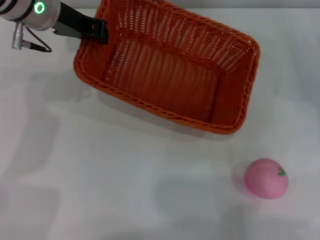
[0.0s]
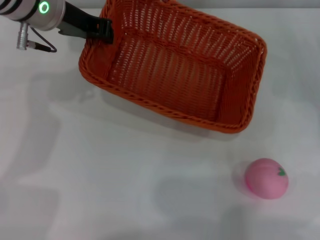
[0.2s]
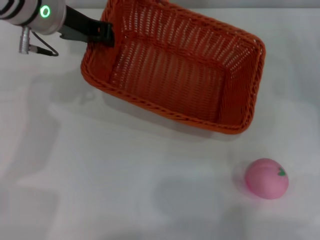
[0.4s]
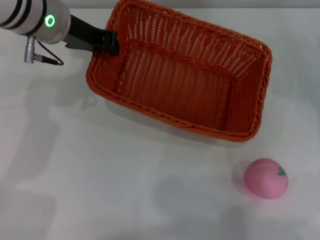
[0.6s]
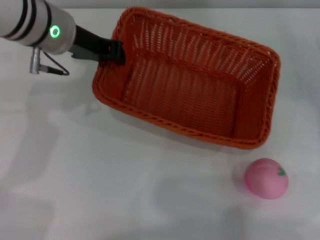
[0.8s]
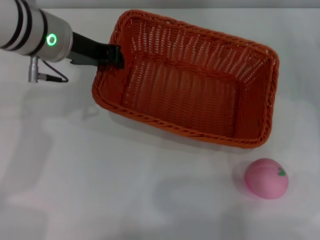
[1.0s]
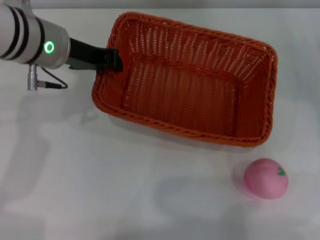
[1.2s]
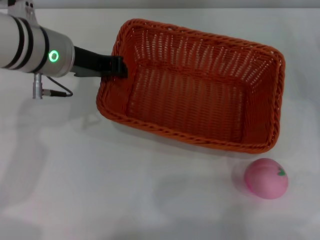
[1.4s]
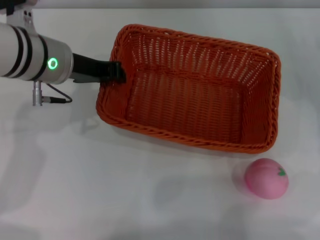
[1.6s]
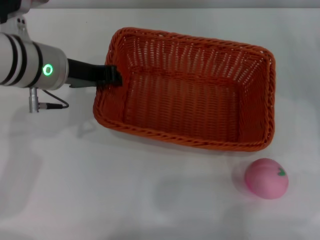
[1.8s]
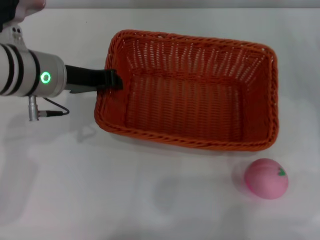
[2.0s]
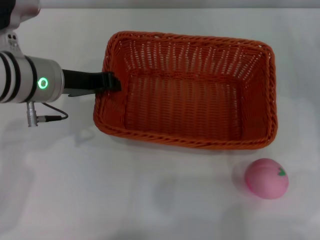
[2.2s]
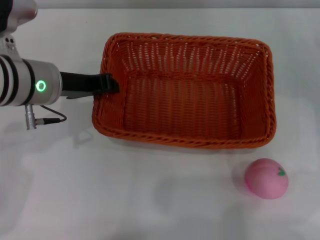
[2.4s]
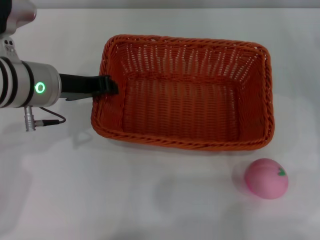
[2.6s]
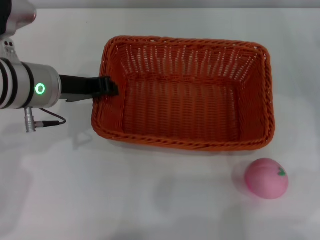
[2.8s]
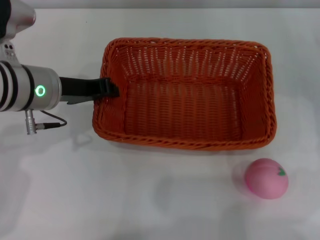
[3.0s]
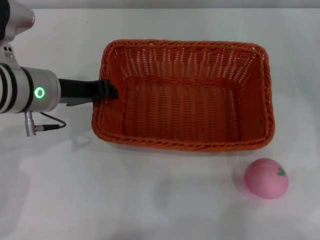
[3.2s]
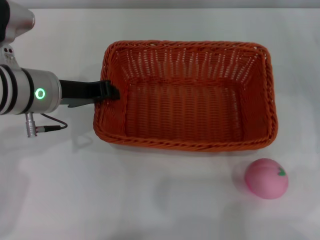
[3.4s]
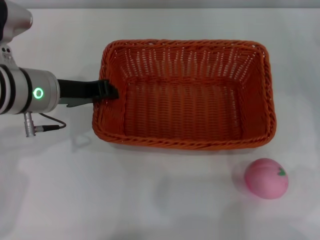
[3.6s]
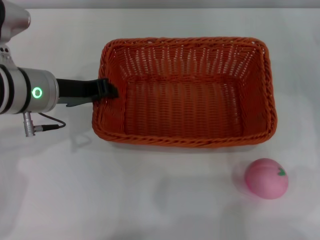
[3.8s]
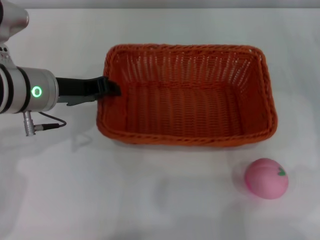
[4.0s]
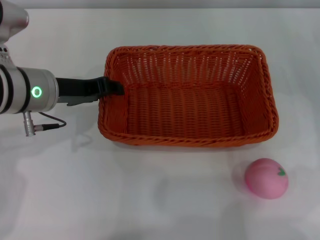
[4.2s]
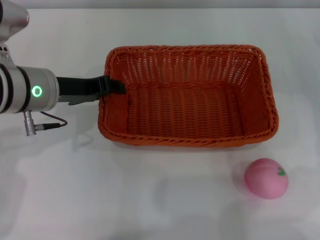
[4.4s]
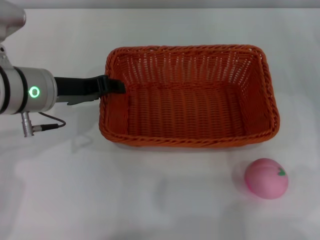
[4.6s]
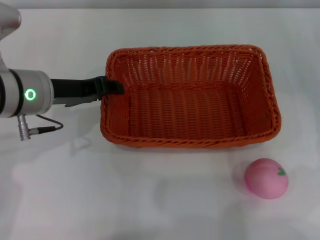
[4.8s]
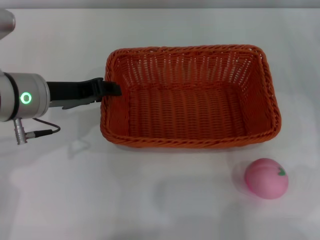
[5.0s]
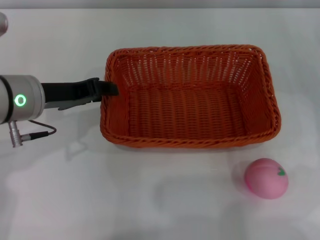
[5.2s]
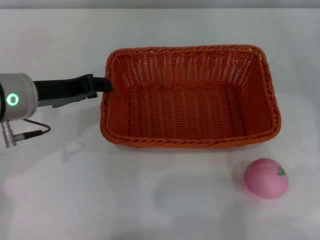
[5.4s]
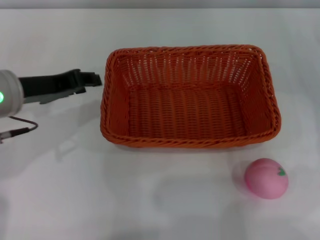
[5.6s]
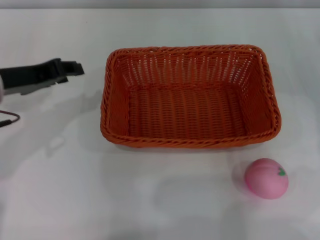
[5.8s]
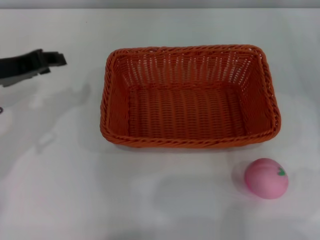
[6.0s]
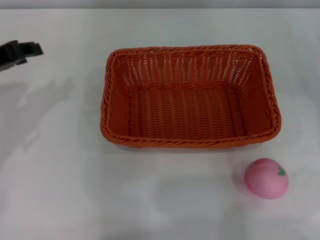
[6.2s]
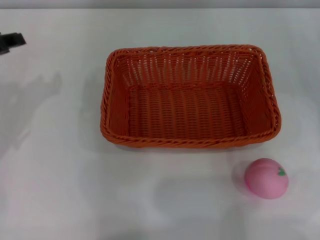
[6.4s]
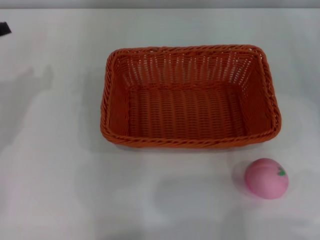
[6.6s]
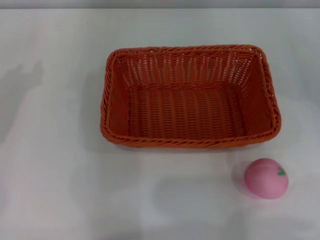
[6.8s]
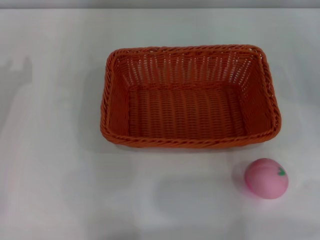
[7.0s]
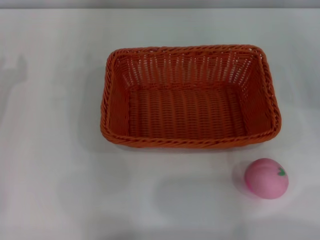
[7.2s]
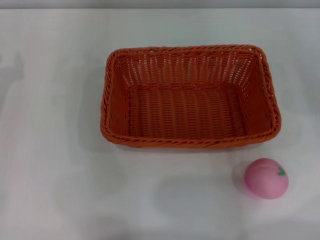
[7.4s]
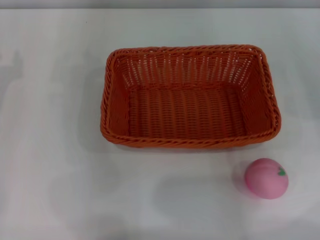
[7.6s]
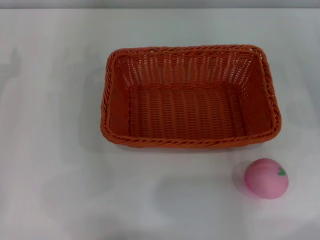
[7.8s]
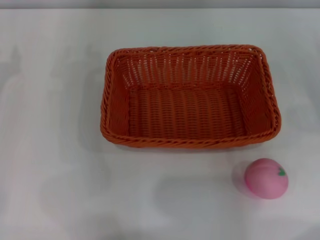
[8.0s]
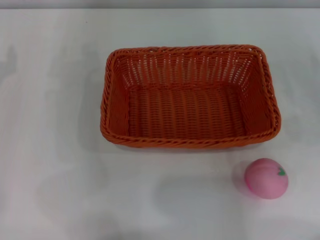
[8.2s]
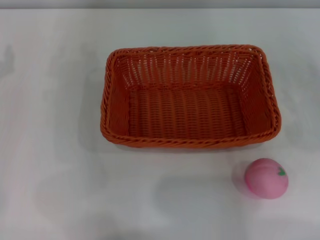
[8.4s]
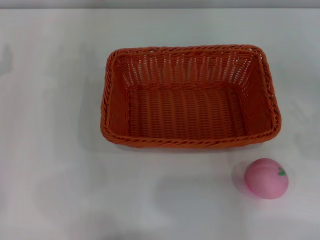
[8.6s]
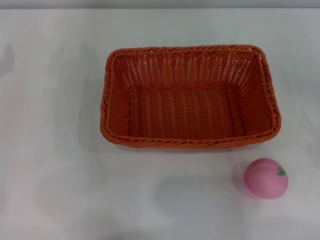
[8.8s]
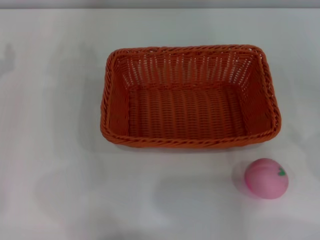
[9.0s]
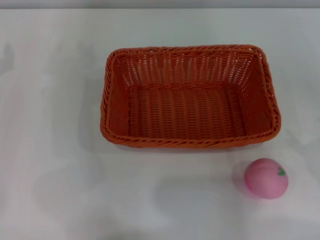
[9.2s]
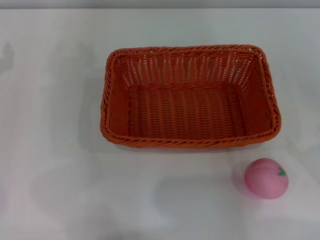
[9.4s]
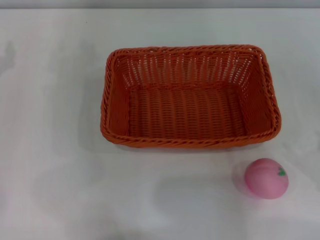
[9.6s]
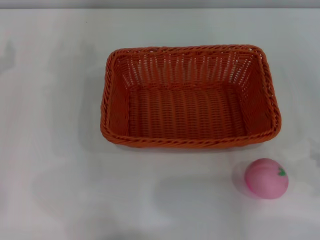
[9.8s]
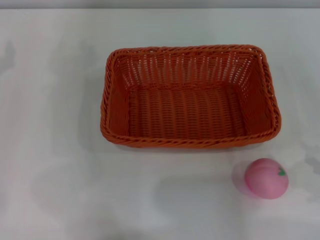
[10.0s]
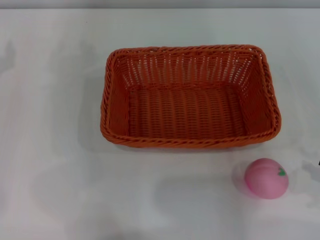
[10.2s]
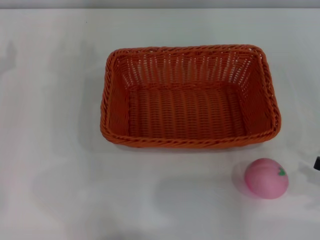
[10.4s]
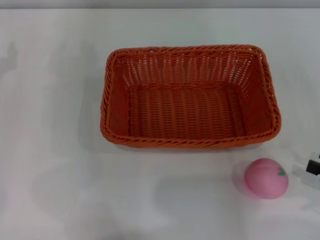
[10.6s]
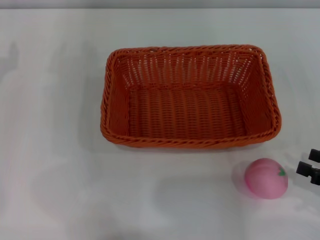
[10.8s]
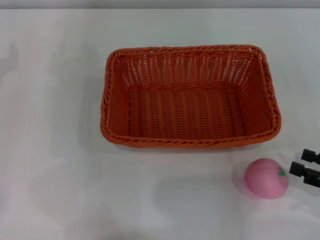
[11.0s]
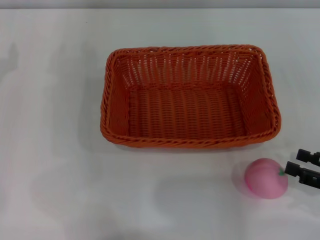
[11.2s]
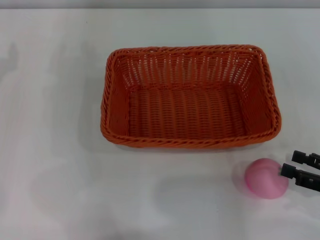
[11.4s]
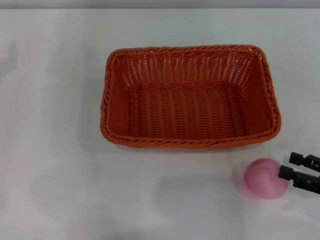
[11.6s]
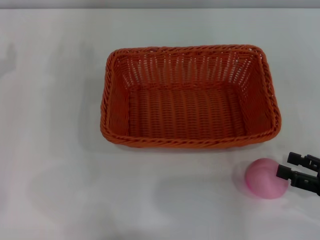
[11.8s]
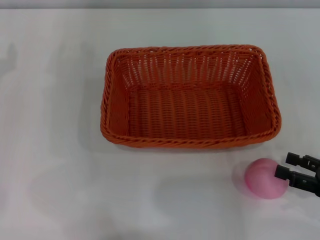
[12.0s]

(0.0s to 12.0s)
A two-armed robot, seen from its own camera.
0.0s - 1.6s: The left gripper is displaced downward by about 5 cm.
1.6s - 3.0s: There are only small adjustments of the grippers.
3.0s - 4.4s: The left gripper opens.
4.4s - 6.0s: The left gripper travels to the left by some 5 cm.
6.0s - 7.6s: The left gripper shifts roughly 10 cm to the left.
10.4s - 12.0s: There are only small adjustments of the grippers.

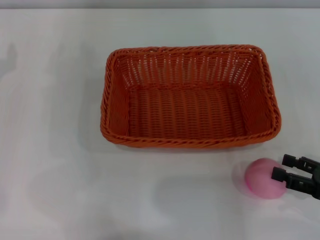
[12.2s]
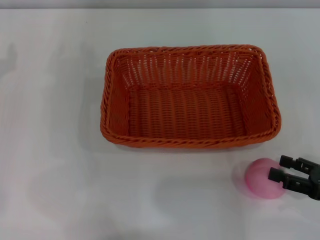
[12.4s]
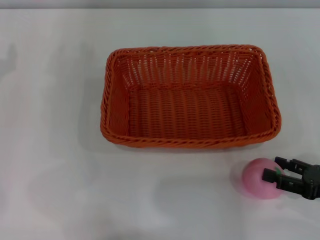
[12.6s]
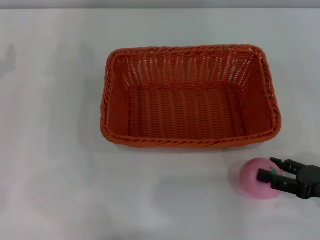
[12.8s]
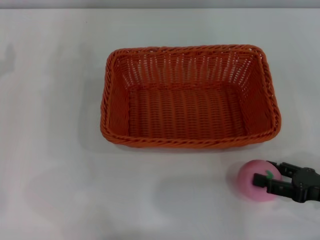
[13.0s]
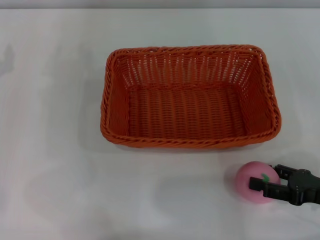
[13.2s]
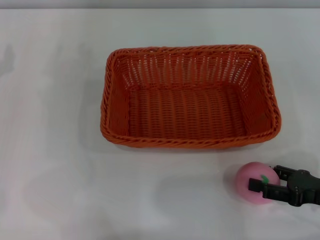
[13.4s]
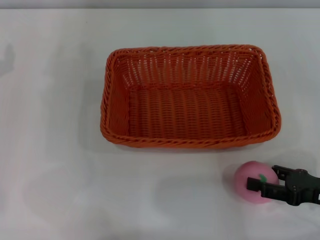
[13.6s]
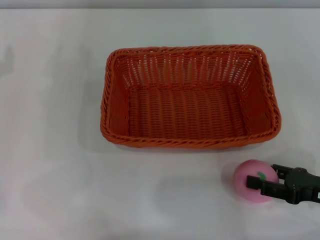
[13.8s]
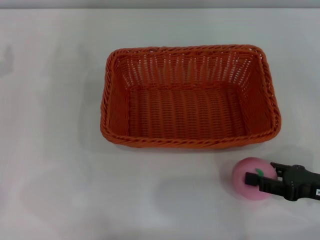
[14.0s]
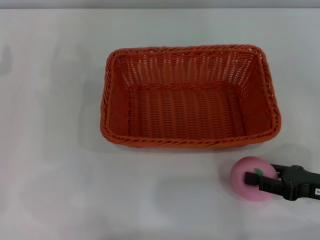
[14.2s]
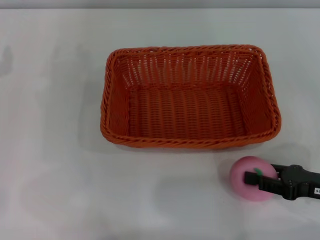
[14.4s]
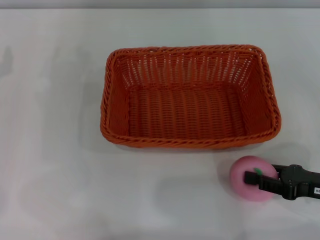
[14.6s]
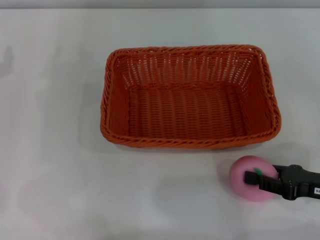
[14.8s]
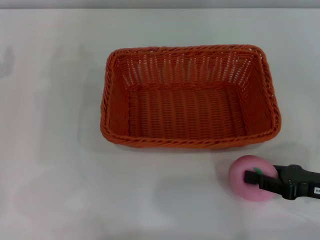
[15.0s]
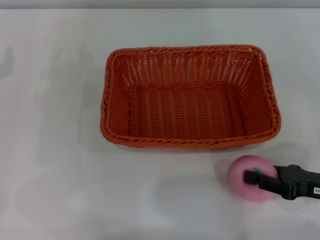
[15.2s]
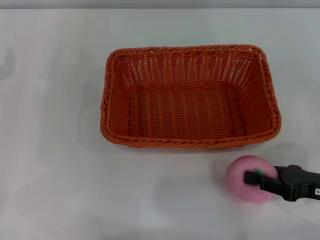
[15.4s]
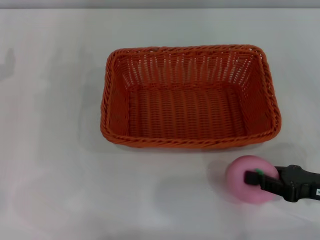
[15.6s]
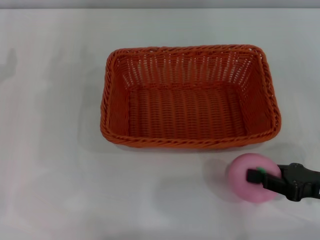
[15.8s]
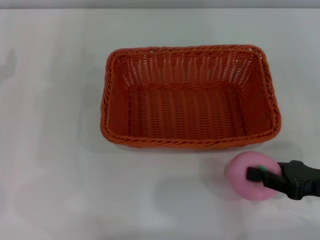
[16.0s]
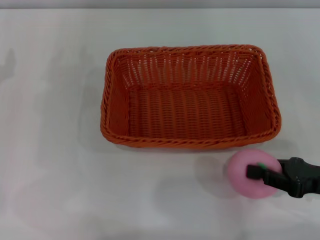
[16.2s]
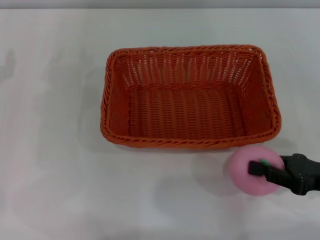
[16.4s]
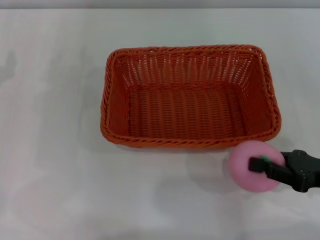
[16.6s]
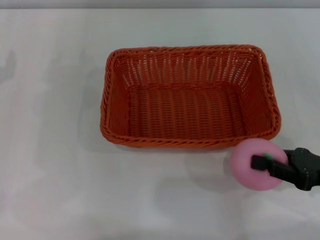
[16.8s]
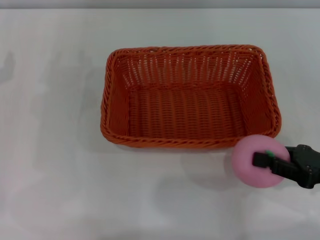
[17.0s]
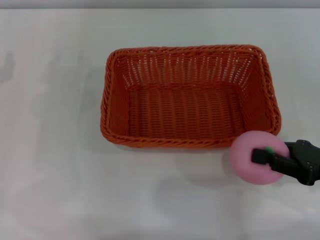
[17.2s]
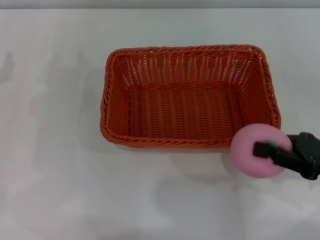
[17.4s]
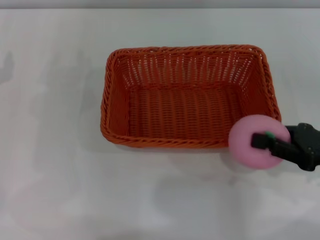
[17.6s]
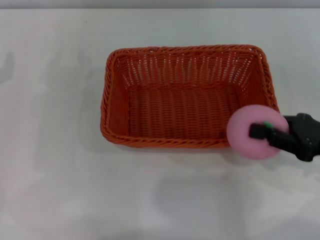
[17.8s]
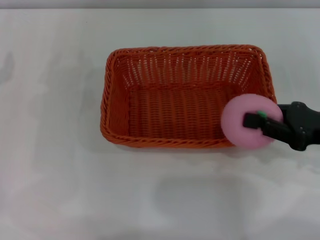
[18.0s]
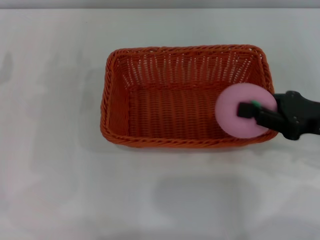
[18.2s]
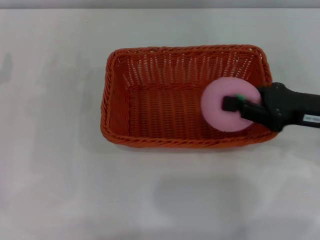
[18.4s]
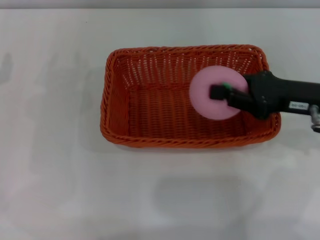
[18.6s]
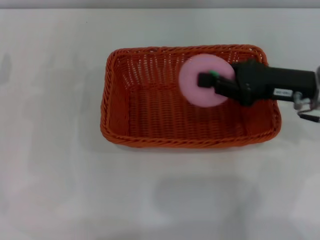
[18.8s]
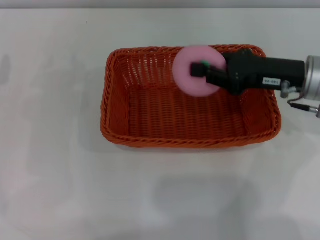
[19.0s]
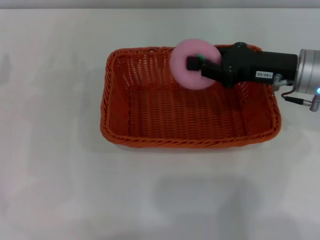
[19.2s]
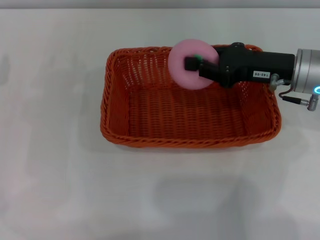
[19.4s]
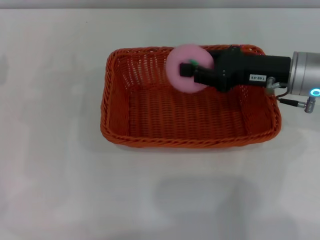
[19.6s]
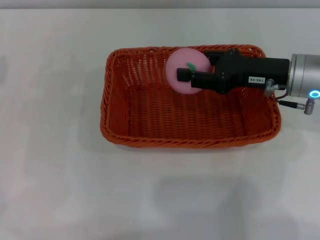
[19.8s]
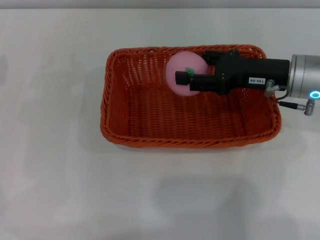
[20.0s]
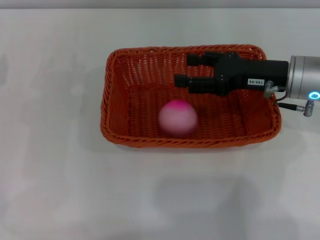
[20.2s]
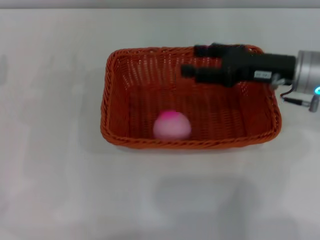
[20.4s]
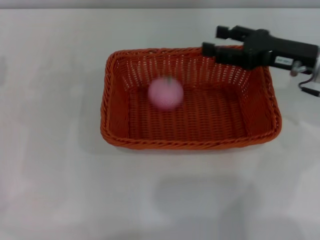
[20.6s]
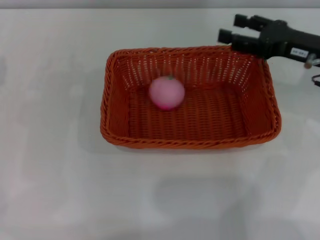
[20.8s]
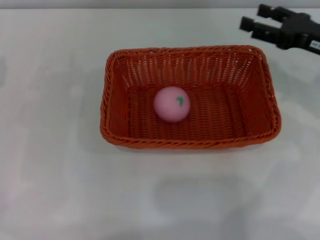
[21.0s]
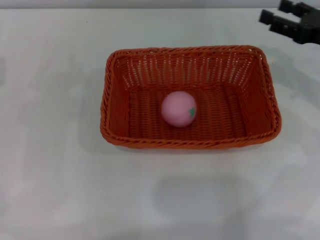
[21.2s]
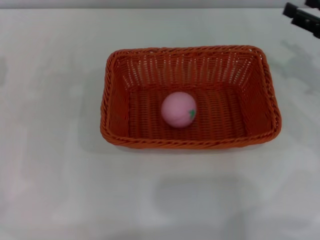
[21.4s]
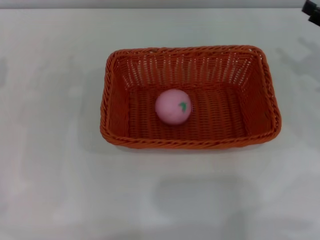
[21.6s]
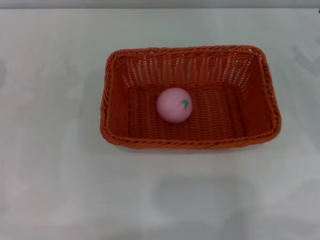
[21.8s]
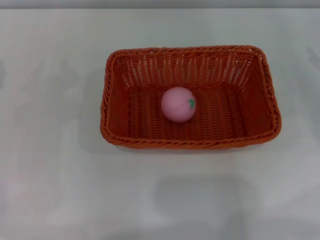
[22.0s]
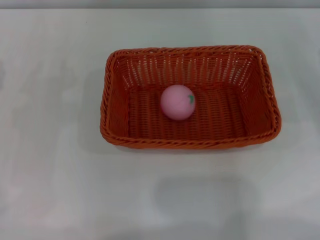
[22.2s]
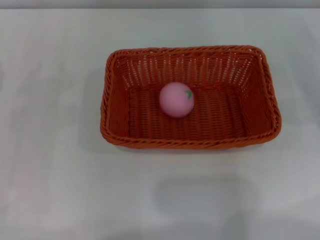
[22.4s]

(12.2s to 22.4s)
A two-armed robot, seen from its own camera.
Step, 12.2s - 17.0s: Pick up the peach with the left gripper.
12.2s - 13.6s: There are only small adjustments of the grippers.
13.6s - 15.2s: The right gripper closes up.
15.2s - 16.6s: The grippers move only a little.
16.6s - 18.0s: The right gripper changes place by approximately 5 cm.
18.0s - 19.4s: The right gripper goes approximately 10 cm forward and to the left.
19.4s - 21.0s: The right gripper shifts approximately 5 cm to the right, and opens its fingers.
21.0s - 22.4s: The right gripper travels to the right and downward by about 10 cm.
